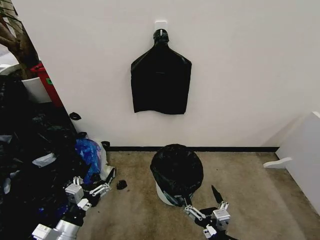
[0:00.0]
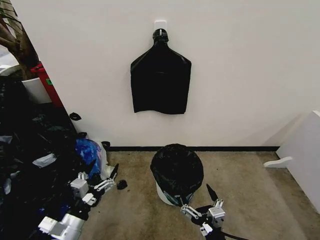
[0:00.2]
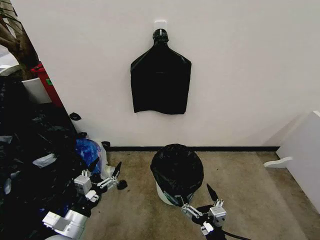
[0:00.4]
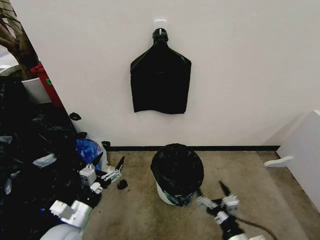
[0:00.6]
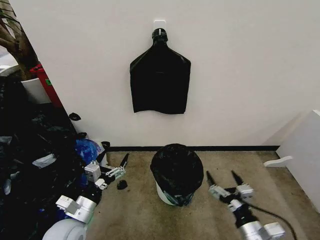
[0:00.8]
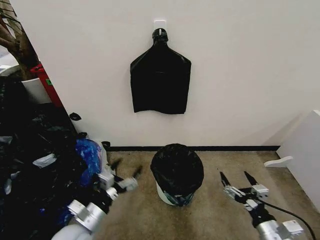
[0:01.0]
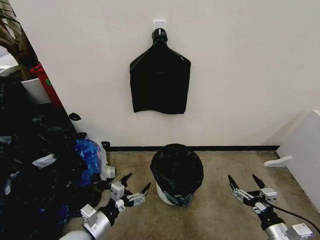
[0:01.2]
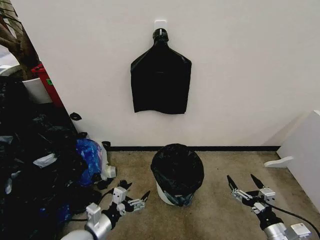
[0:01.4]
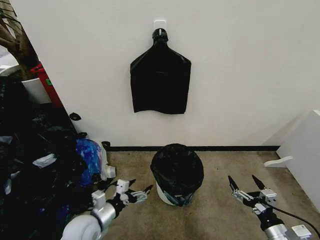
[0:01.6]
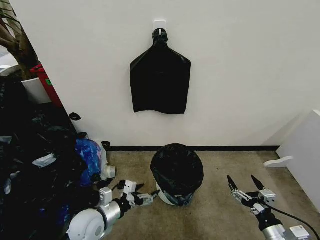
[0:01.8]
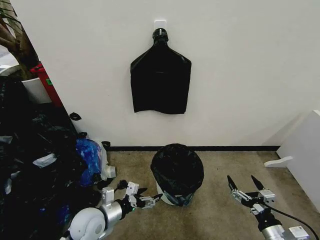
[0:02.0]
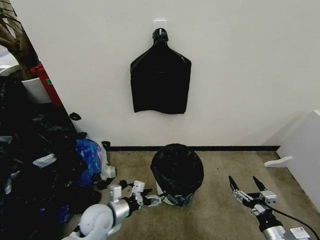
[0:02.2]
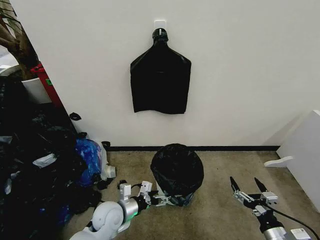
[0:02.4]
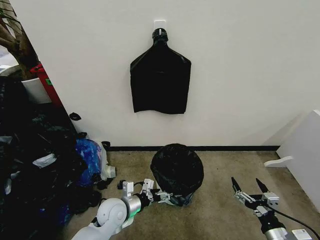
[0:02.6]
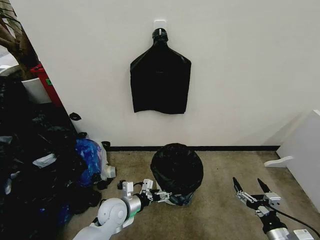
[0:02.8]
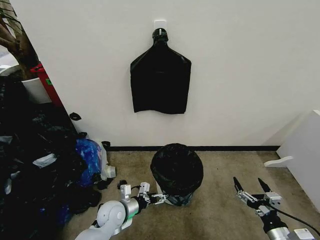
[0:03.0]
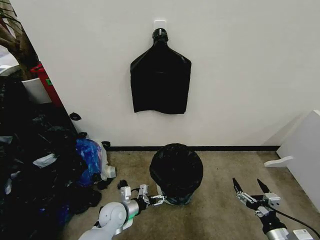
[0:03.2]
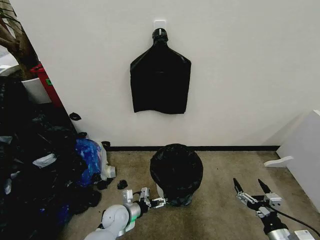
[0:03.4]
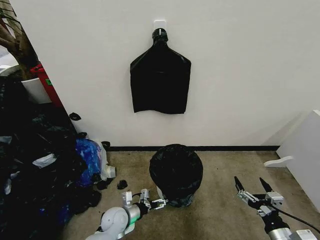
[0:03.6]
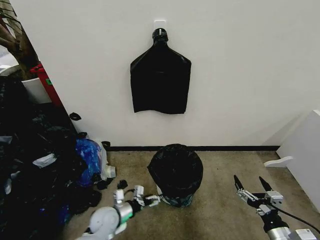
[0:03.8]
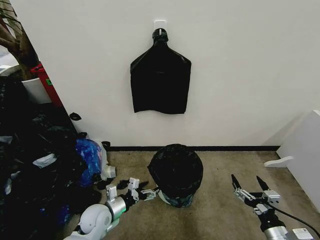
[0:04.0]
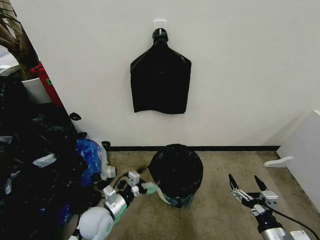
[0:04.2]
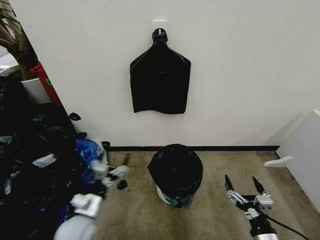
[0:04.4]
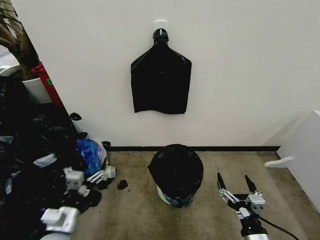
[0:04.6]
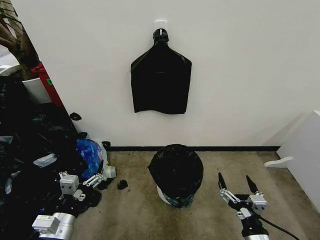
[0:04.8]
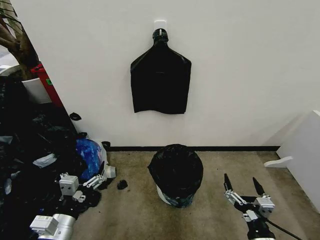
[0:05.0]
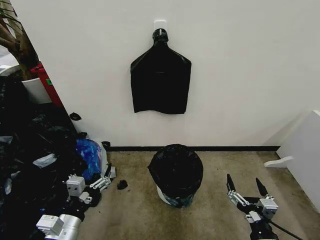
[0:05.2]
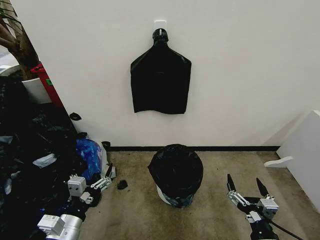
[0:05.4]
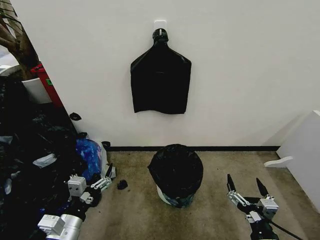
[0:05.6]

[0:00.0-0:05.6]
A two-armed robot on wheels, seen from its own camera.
Task of the whole recording: Place the garbage bag over the trash bin.
0:00.0 to 0:01.4: The right gripper is displaced to the right by approximately 20 cm. Meanwhile the left gripper moves to the right, about 5 cm.
0:01.4 to 0:02.8: The left gripper is displaced forward and to the right by approximately 10 cm.
0:02.8 to 0:04.2: The left gripper moves approximately 10 cm downward and comes back.
0:04.2 to 0:05.6: The left gripper shifts roughly 15 cm backward and upward. Meanwhile the right gripper is displaced to the left by about 5 cm.

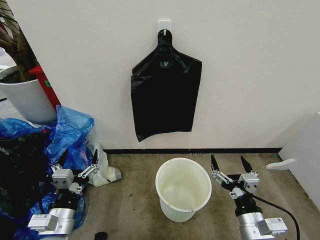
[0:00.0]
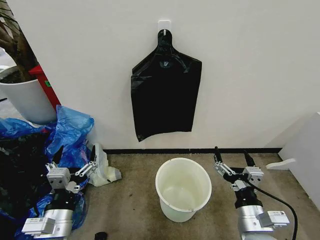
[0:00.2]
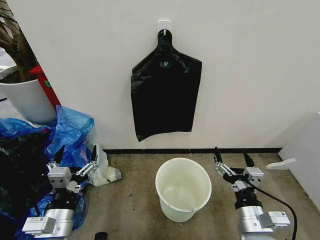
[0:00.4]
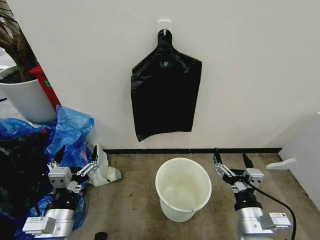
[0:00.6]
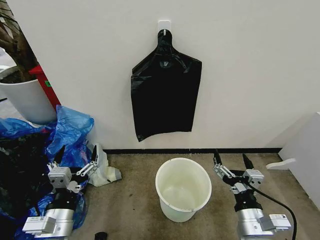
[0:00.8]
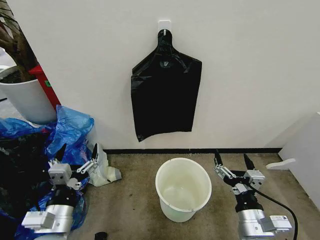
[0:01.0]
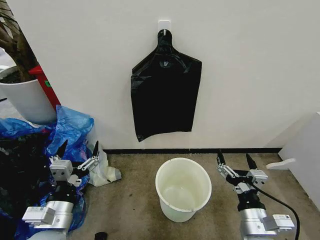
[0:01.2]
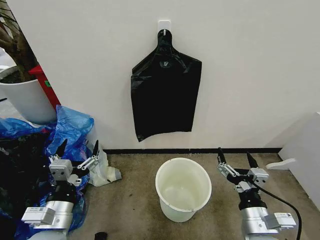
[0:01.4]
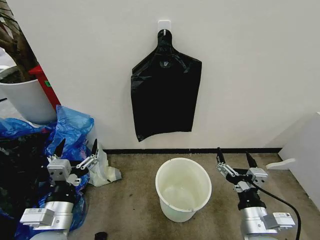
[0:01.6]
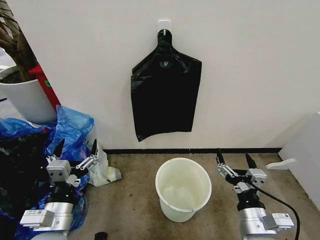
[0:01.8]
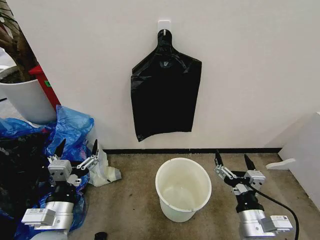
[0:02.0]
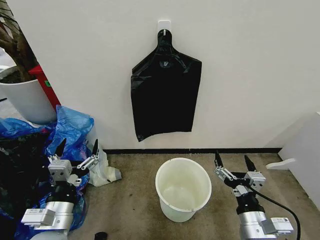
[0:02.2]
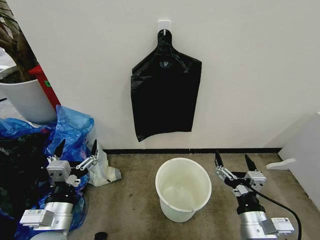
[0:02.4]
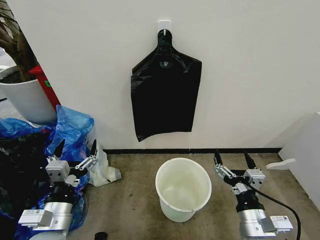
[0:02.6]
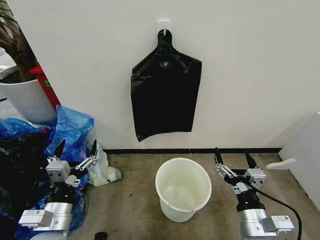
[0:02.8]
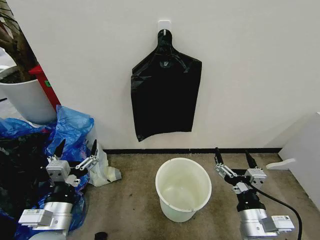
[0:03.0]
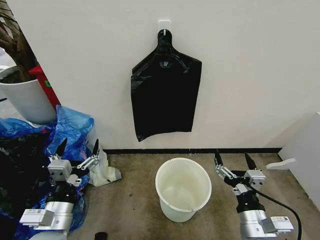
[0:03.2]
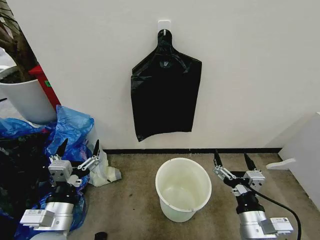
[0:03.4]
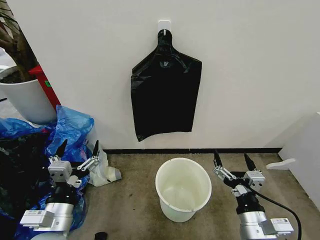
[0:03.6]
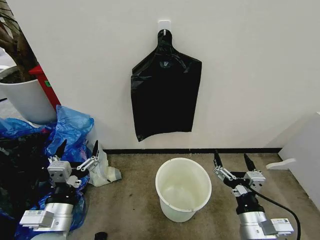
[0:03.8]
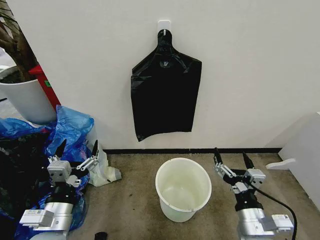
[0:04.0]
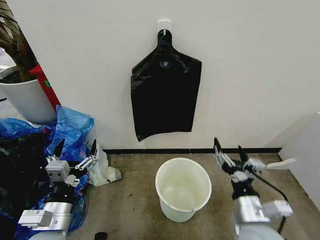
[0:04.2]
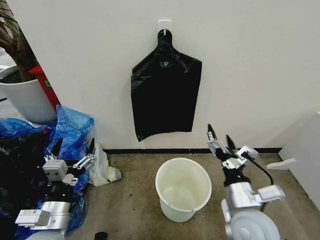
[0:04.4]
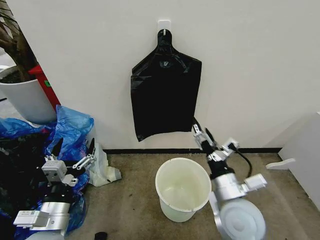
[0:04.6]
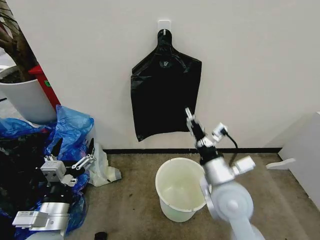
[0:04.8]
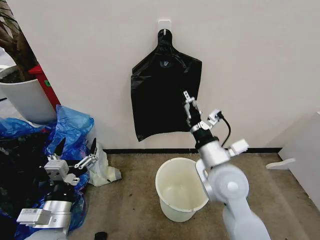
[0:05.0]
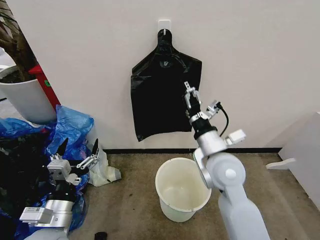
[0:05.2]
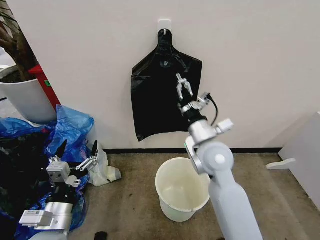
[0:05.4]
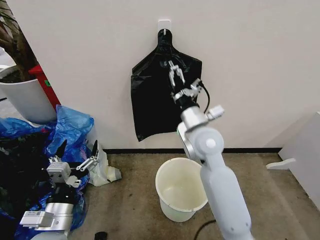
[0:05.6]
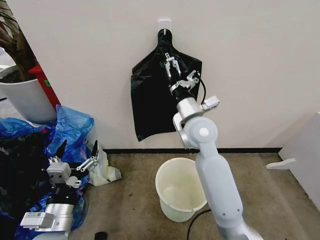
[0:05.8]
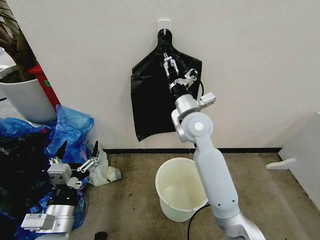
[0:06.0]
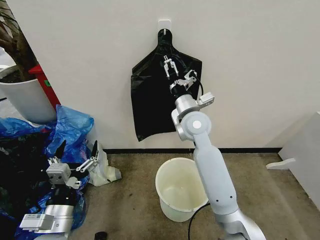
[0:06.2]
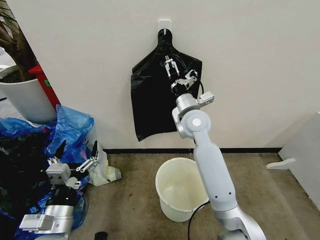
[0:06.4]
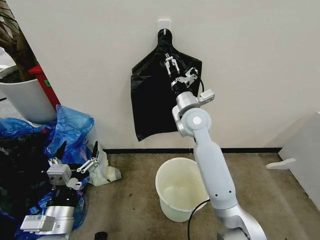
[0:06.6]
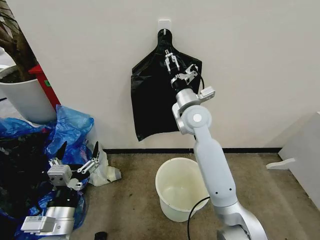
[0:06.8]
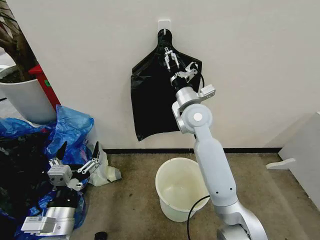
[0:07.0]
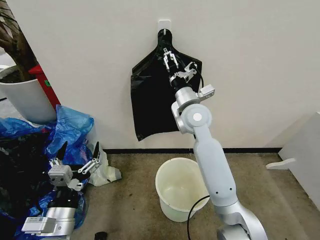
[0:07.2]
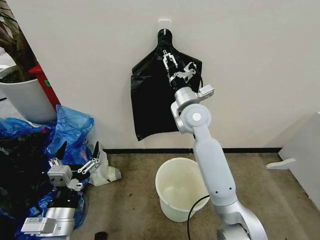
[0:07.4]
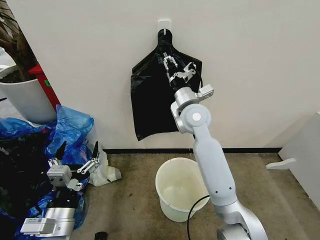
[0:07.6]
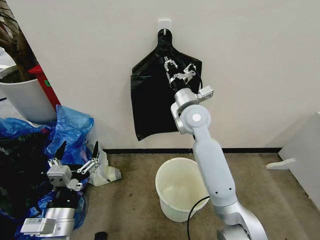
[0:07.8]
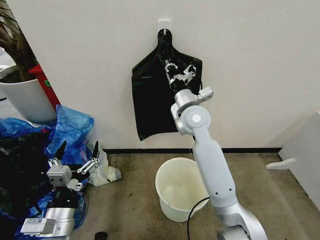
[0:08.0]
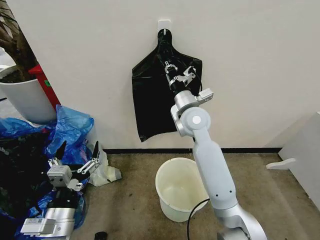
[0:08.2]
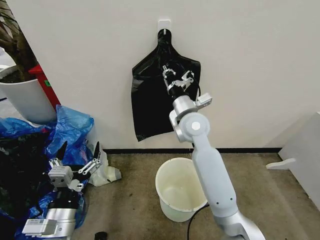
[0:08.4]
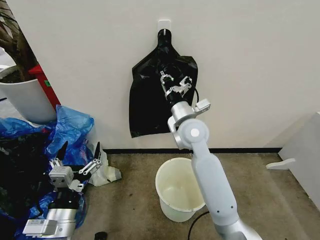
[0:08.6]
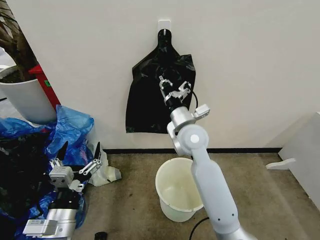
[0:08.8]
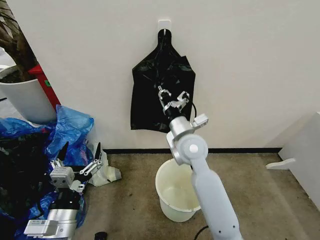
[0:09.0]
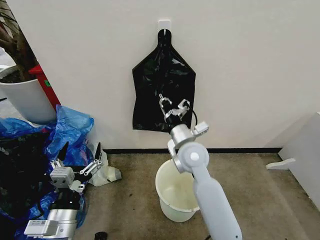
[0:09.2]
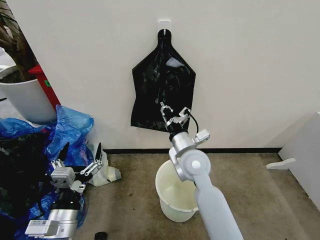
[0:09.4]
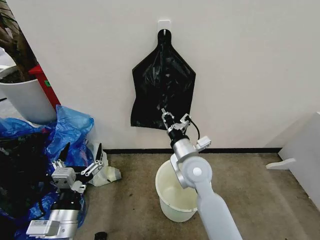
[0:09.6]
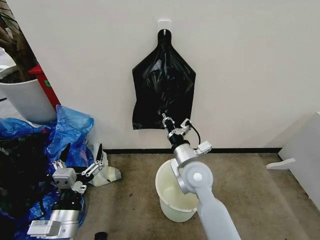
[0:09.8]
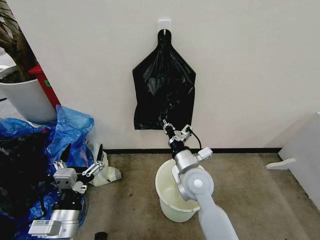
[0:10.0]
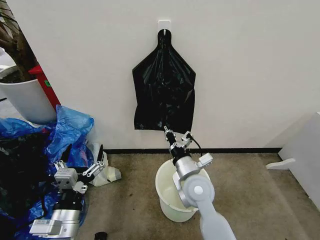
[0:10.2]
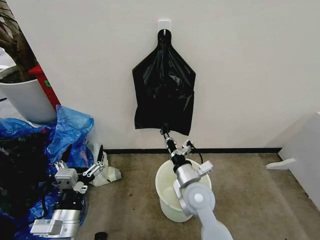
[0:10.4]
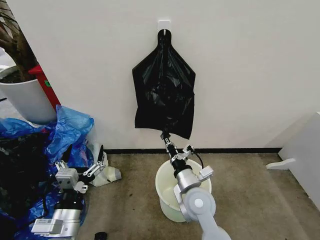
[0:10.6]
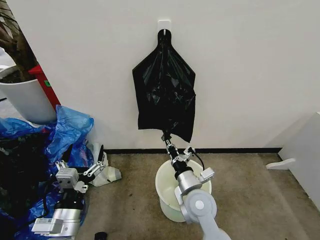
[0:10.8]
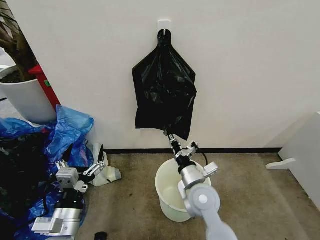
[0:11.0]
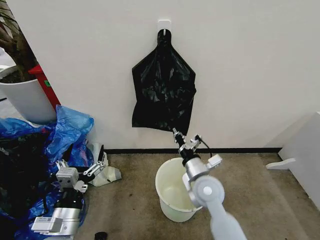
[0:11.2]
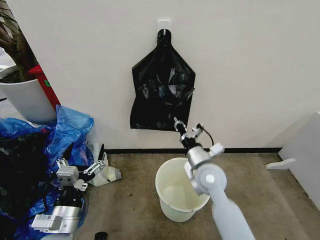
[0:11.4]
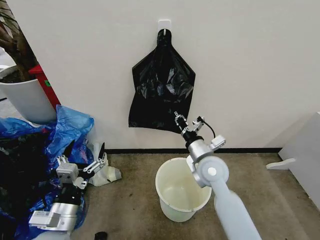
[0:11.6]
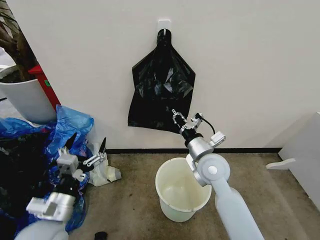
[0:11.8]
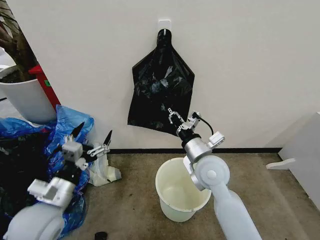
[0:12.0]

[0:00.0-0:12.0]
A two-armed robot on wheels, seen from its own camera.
Task of the whole recording: Place the garbage bag over the trash bin.
0:01.6 to 0:03.0: Neither gripper changes place.
0:03.0 to 0:04.4: The right gripper ends up approximately 5 cm from where it was.
0:04.4 to 0:06.0: The right gripper moves forward, to the left and upward, about 30 cm.
0:06.0 to 0:07.6: The right gripper closes its fingers.
0:07.6 to 0:09.0: The right gripper travels backward and downward by roughly 10 cm, and closes its fingers.
0:09.0 to 0:10.4: The right gripper heads downward and backward, covering roughly 15 cm.
0:10.4 to 0:12.0: The left gripper moves forward and upward, some 10 cm. The right gripper is displaced upward by about 10 cm.

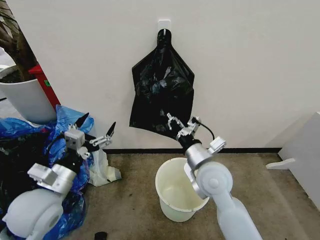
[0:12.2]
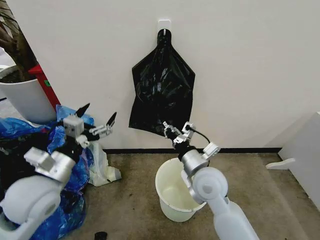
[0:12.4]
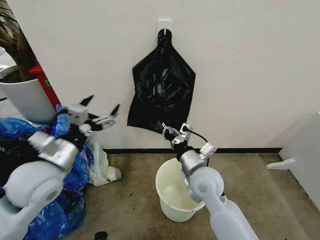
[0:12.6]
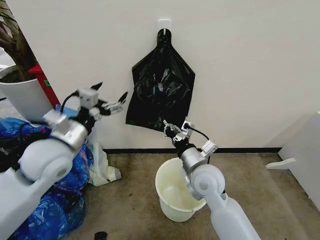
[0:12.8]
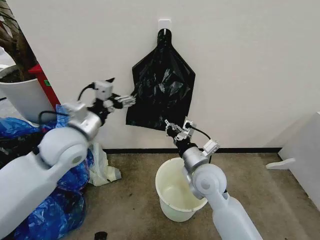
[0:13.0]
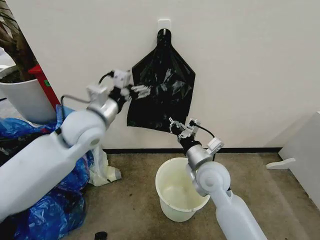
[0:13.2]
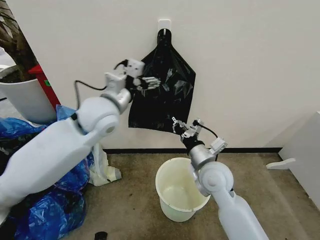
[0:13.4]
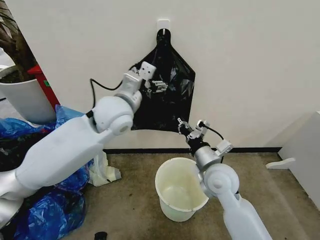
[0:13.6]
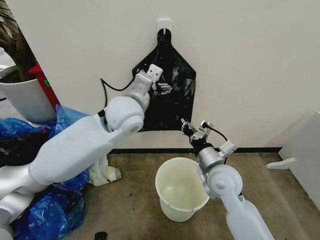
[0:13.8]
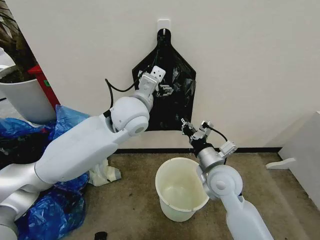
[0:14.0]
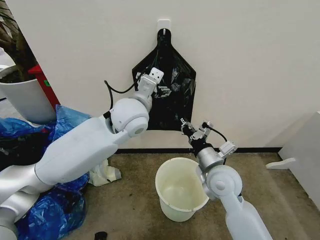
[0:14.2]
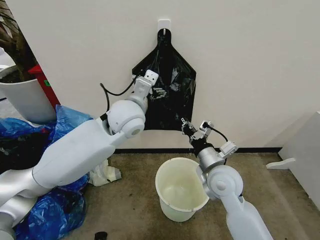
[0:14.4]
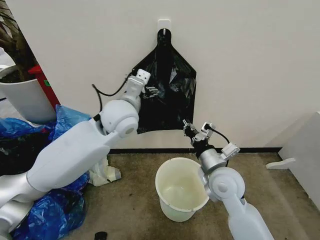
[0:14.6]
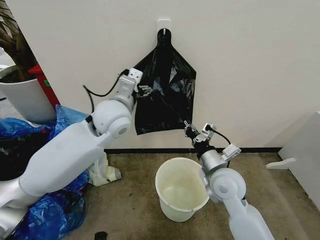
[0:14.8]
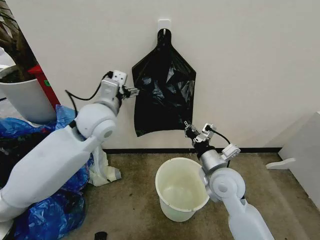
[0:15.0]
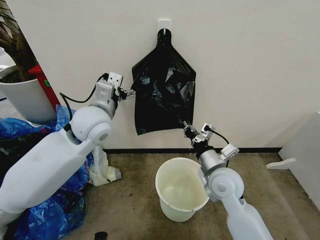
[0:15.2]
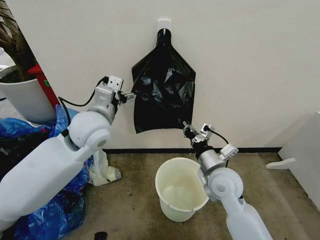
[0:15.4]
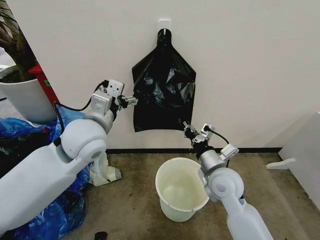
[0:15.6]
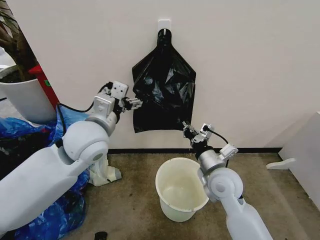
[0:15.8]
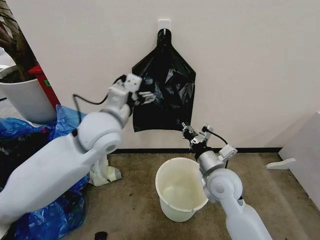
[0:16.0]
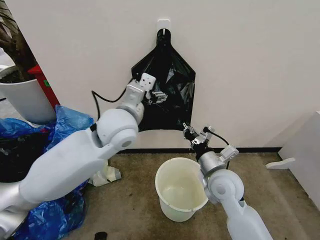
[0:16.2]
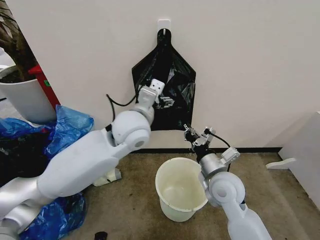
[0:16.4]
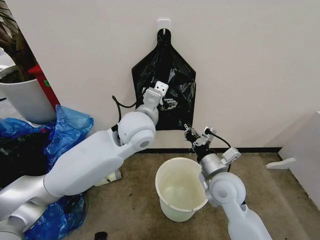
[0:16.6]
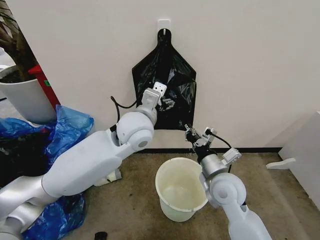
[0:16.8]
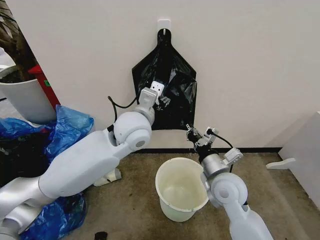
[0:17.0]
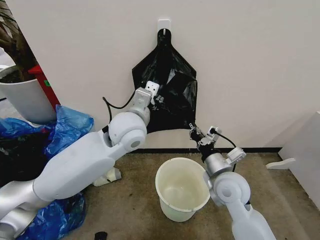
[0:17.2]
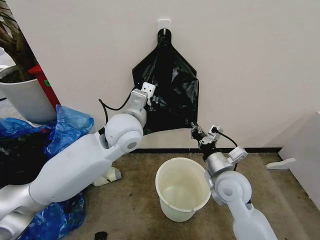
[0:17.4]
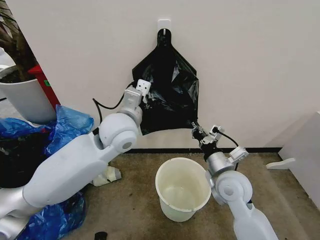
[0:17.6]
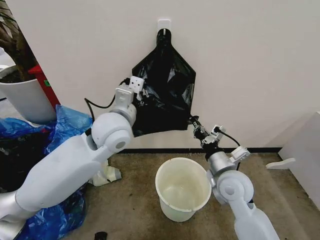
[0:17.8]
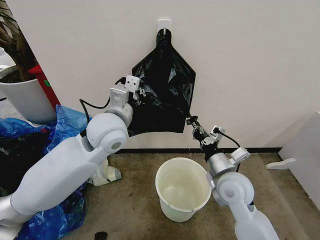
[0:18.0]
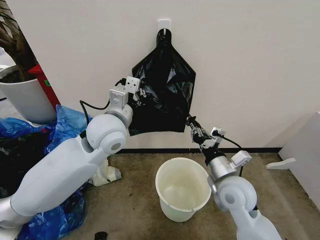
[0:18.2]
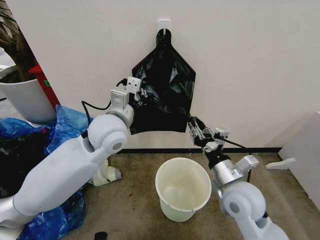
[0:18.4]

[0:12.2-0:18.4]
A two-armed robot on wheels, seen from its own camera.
Task of the whole recording: Place the garbage bag over the trash bin.
0:12.2 to 0:13.8: The left gripper goes approximately 30 cm forward, to the right and upward.
0:13.8 to 0:15.4: The left gripper moves to the left, roughly 10 cm.
0:15.4 to 0:16.8: The left gripper moves to the right, some 10 cm.
0:16.8 to 0:18.4: The left gripper is displaced to the left by about 5 cm, and closes up. Meanwhile the right gripper moves some 5 cm, and opens its fingers.
